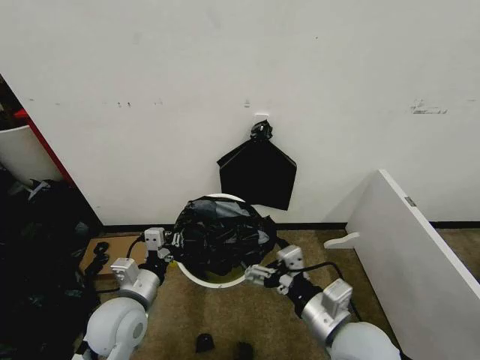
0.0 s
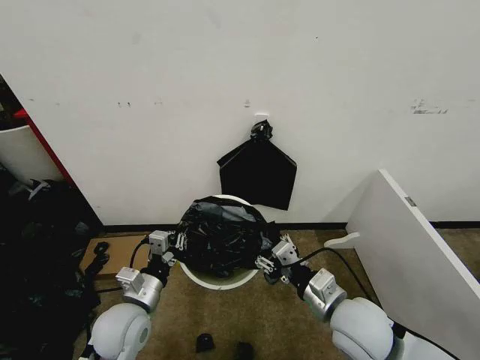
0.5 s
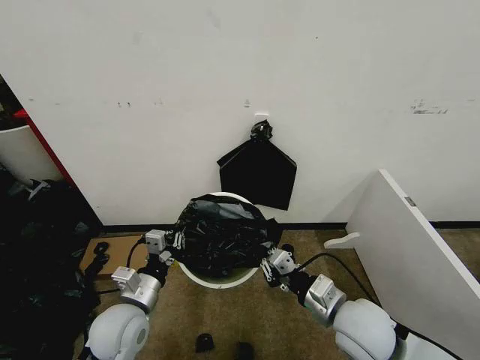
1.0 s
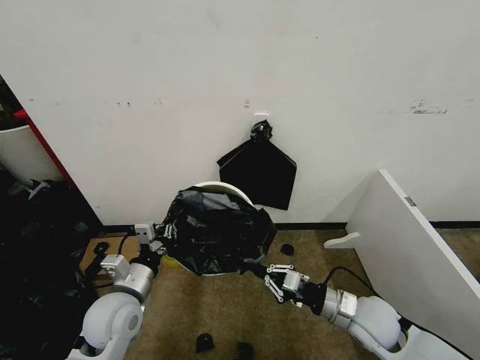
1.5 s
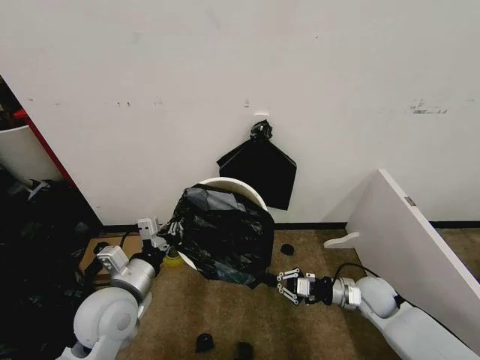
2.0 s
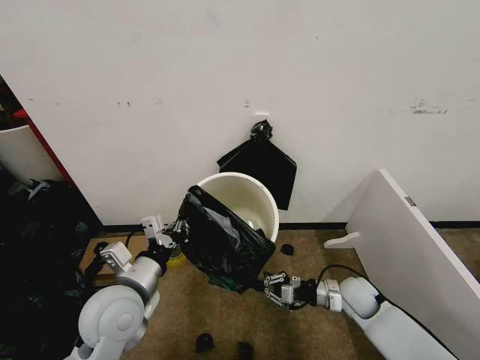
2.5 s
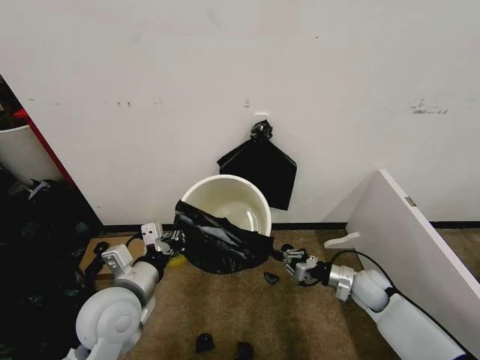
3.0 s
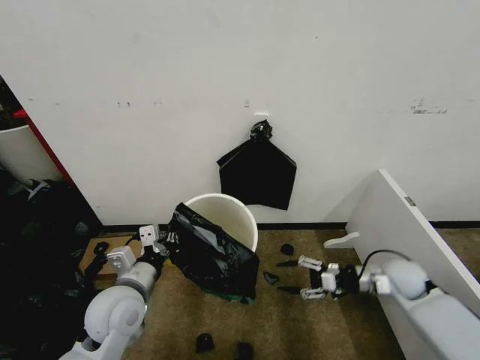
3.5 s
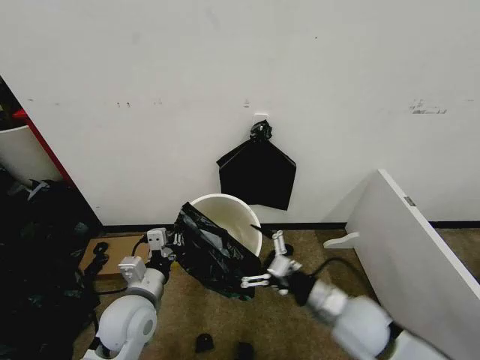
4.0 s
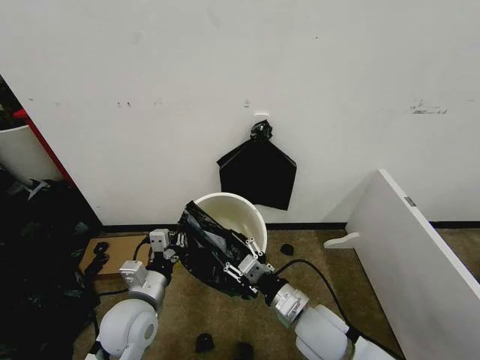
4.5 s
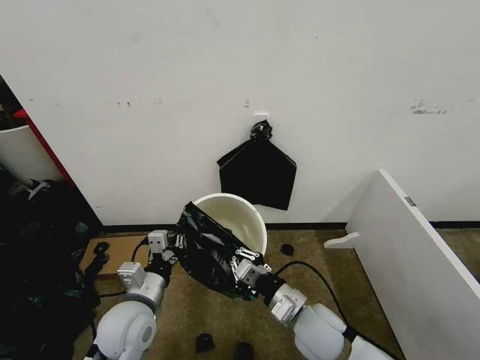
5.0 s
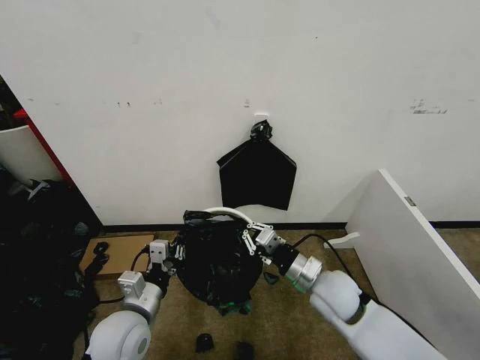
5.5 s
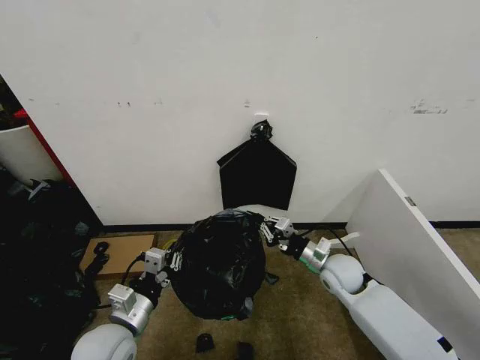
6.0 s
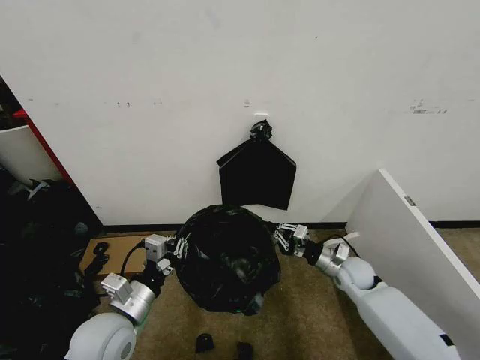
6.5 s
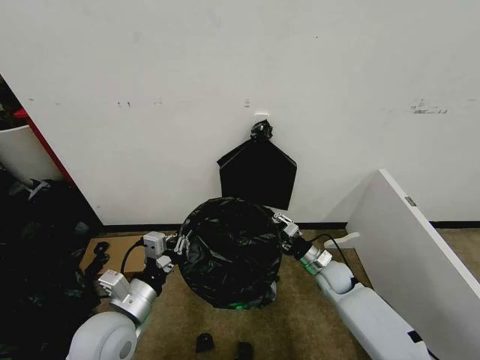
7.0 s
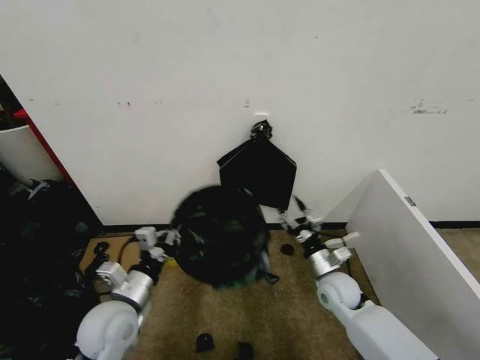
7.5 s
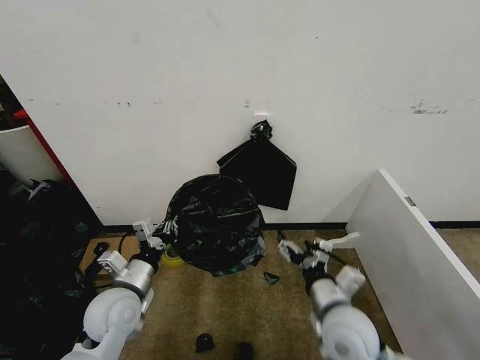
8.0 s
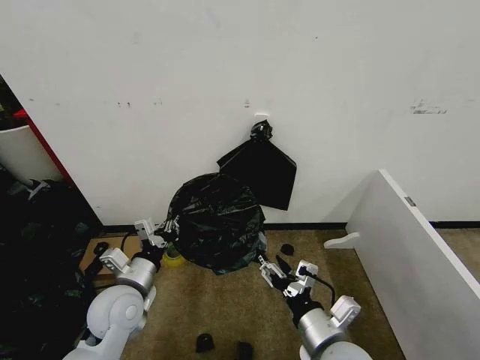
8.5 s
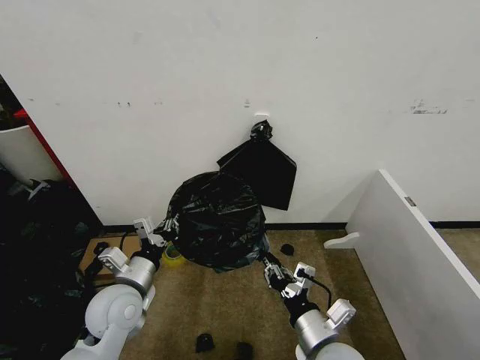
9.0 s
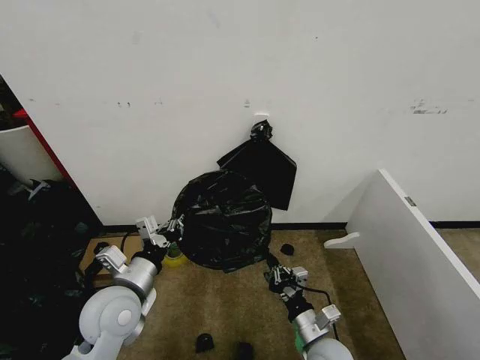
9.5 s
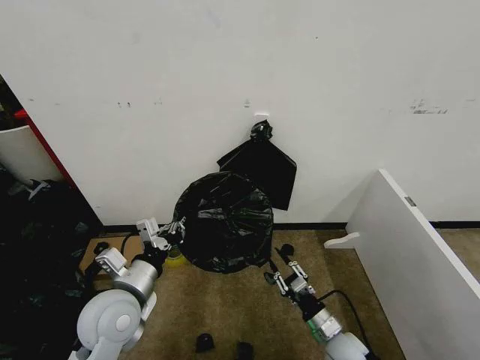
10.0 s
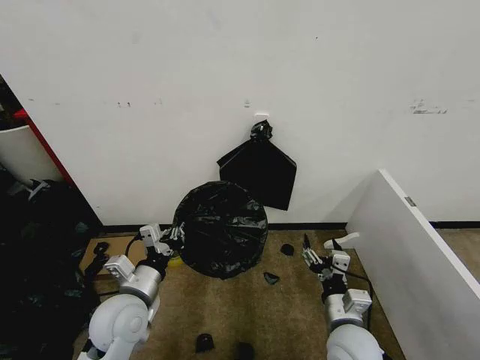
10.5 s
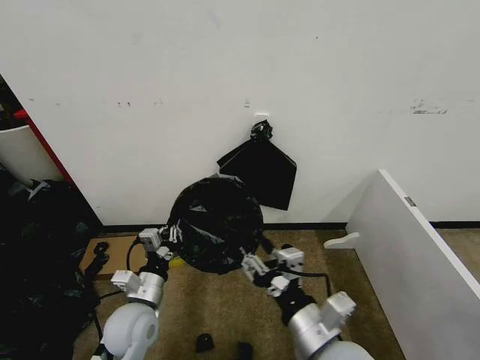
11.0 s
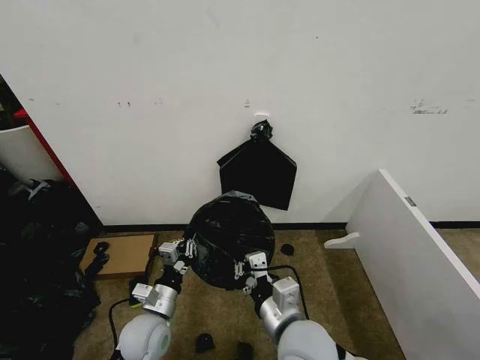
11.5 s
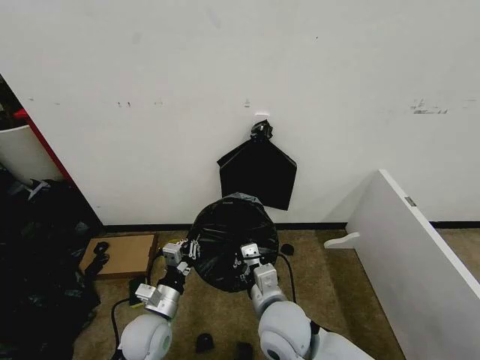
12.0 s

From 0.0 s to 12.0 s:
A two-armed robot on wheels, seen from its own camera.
Task of the whole recording: Place the garbage bag over the trash bin.
From 0.0 s to 2.0 s: The right gripper travels downward, forward and to the right by roughly 25 cm, and closes its fingers.
From 2.0 s to 4.0 s: The right gripper goes roughly 15 cm to the left, upward and backward, and opens. Meanwhile the left gripper ends up some 5 cm from where it was.
From 4.0 s to 6.0 s: The left gripper changes place by roughly 5 cm, while the right gripper heads forward and downward, covering some 15 cm, and closes its fingers.
From 6.0 s to 8.0 s: The left gripper moves forward, roughly 5 cm, while the right gripper goes approximately 15 cm backward and upward, and opens.
From 8.0 s to 10.0 s: The right gripper shifts approximately 20 cm downward, and closes up. Meanwhile the left gripper ends up about 5 cm from where it was.
From 10.0 s to 12.0 s: The right gripper moves upward and to the left, roughly 25 cm, and opens and closes again, while the left gripper is displaced downward by approximately 15 cm.

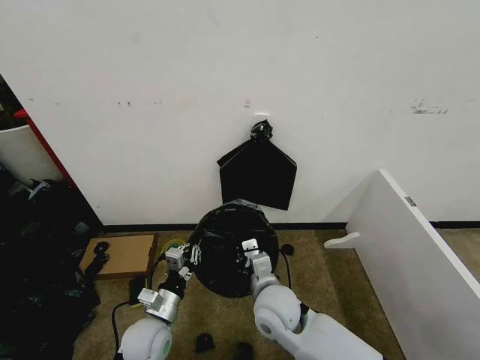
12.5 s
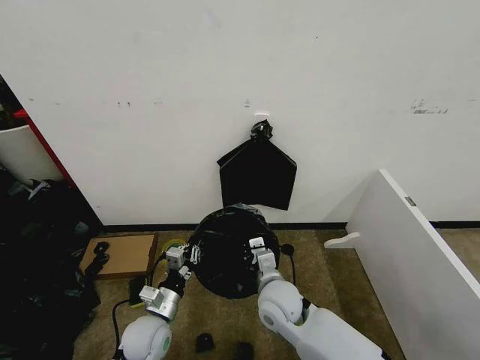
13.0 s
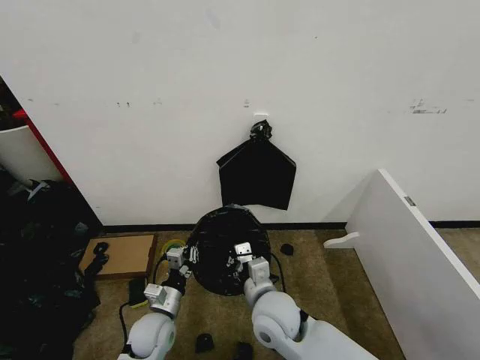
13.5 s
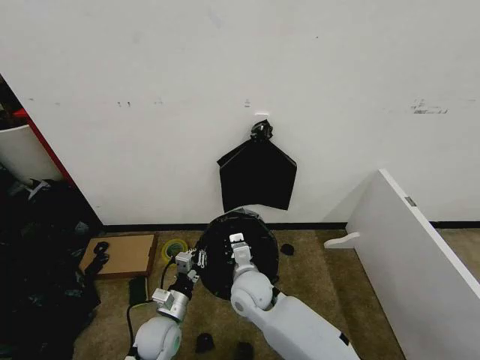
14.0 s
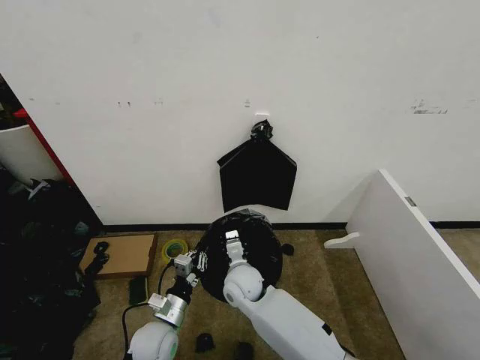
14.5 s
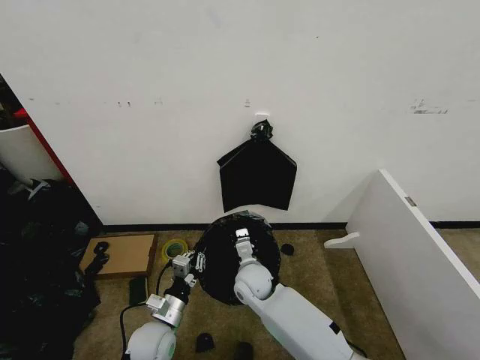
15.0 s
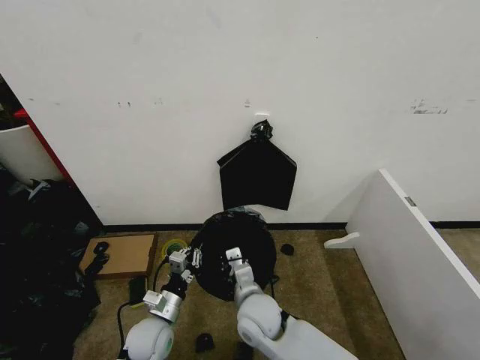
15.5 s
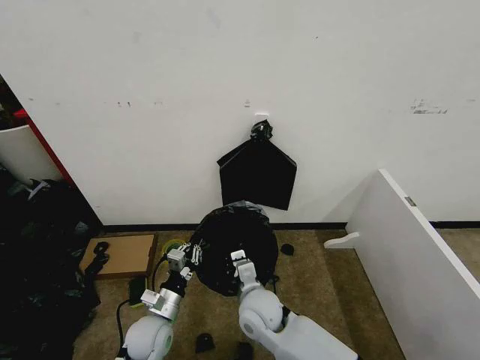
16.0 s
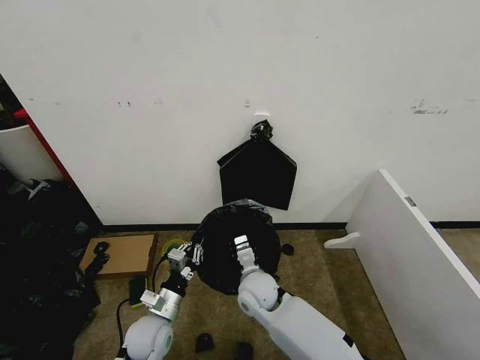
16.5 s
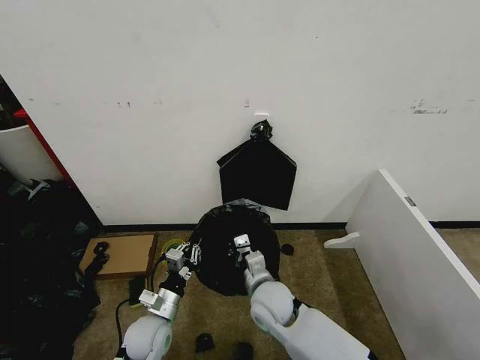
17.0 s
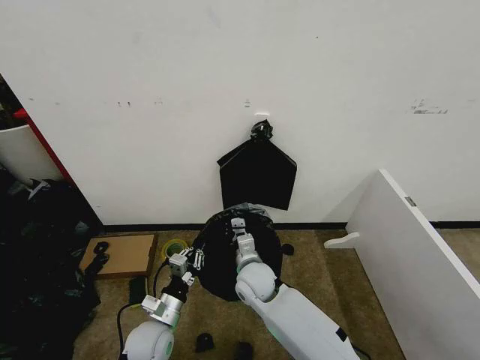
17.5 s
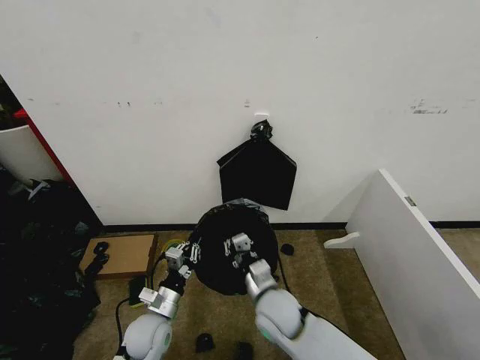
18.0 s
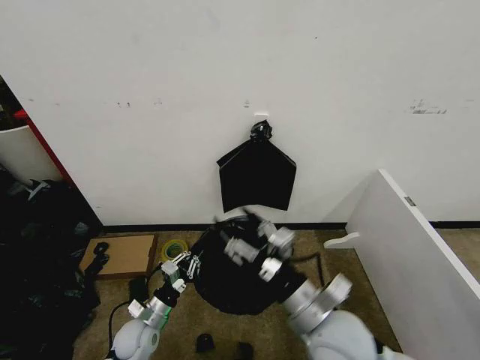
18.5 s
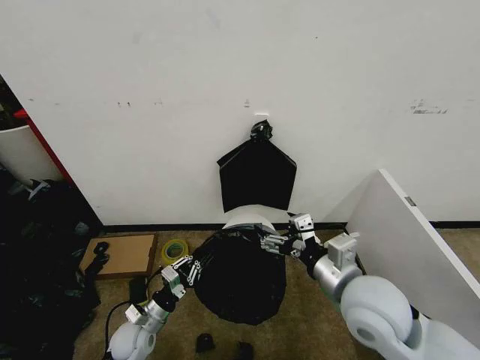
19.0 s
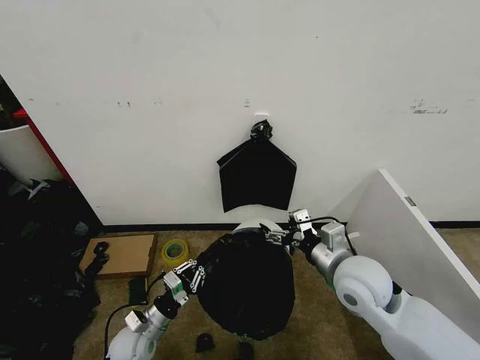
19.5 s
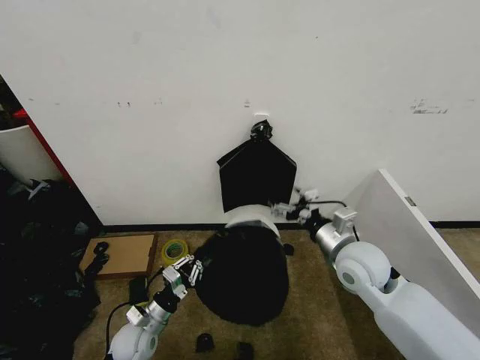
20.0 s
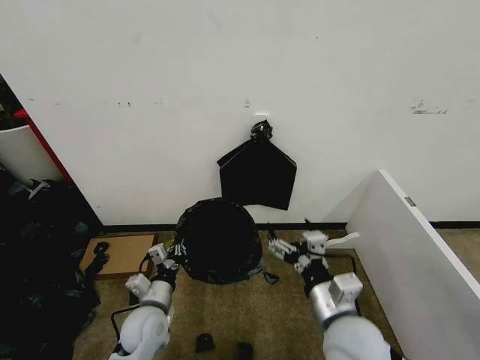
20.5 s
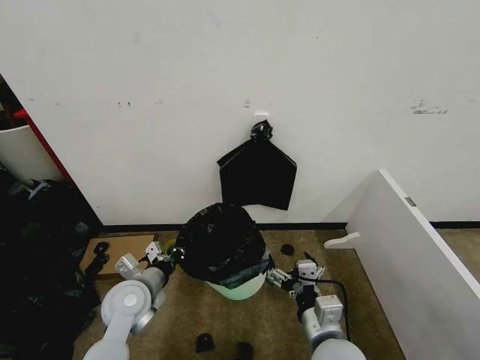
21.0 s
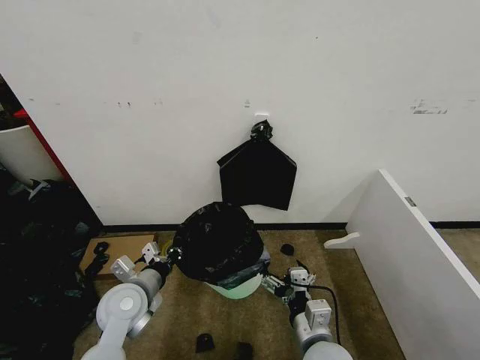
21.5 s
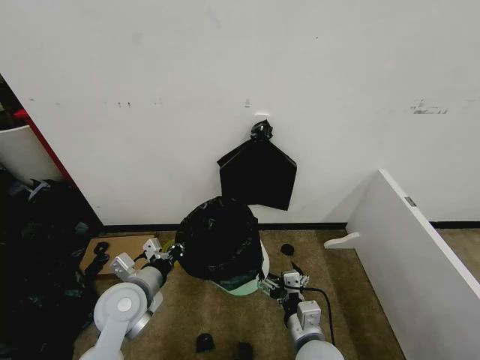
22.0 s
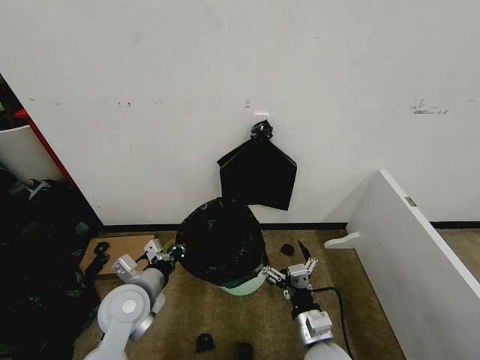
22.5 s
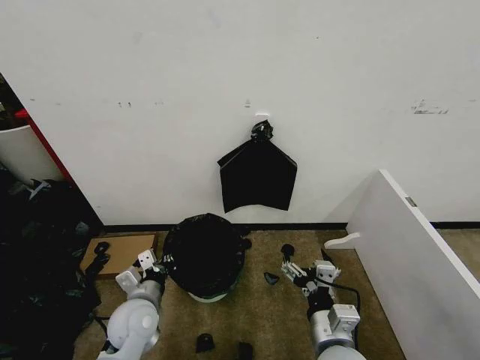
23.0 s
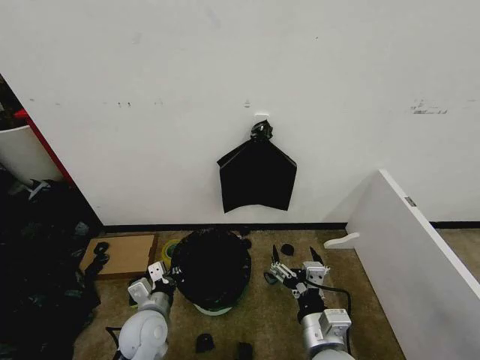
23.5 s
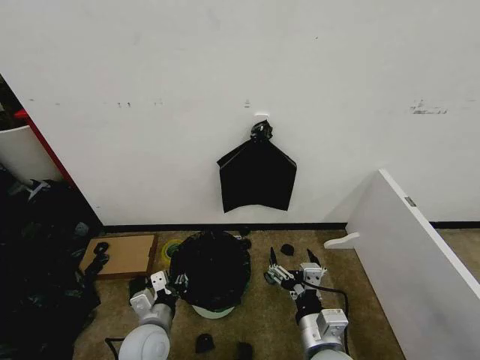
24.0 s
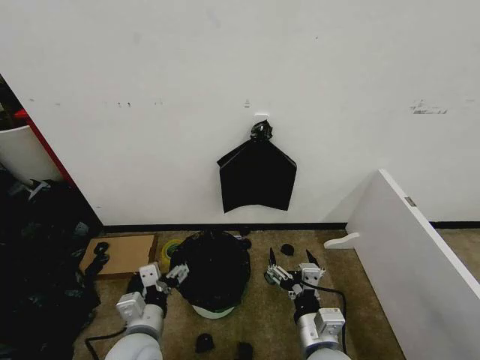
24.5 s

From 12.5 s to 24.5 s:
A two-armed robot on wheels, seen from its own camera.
Task of the whole recording: Place the garbage bag over the trash bin.
From 12.5 s to 14.5 s: The right gripper travels forward, to the left and downward by some 10 cm.
From 14.5 s to 16.5 s: The right gripper moves roughly 10 cm backward and comes back.
From 16.5 s to 18.5 s: The right gripper travels upward, backward and to the right by approximately 25 cm, and opens its fingers. Meanwhile the left gripper ends up roughly 5 cm from where it was.
From 18.5 s to 20.5 s: The left gripper is displaced upward by some 5 cm. The right gripper goes forward and returns, roughly 15 cm each way.
From 20.5 s to 22.5 s: The left gripper heads upward, covering about 10 cm; the right gripper is displaced downward by about 10 cm.
From 22.5 s to 24.5 s: The right gripper travels upward by roughly 5 cm, while the left gripper shifts some 10 cm backward, and opens its fingers.

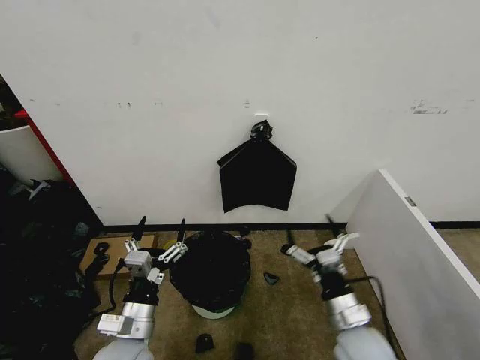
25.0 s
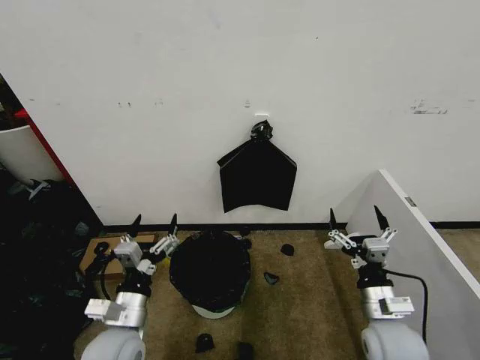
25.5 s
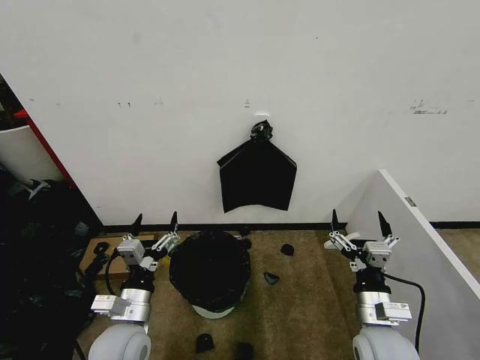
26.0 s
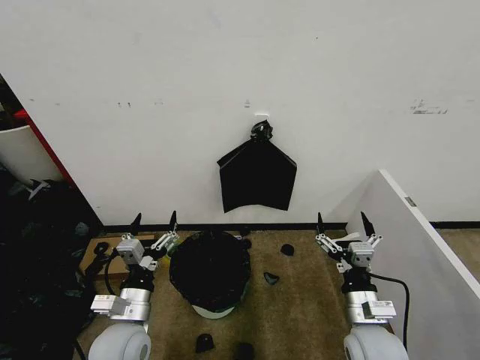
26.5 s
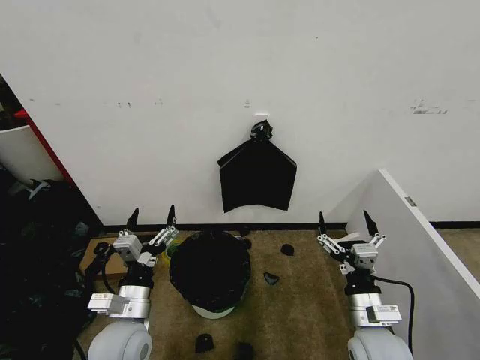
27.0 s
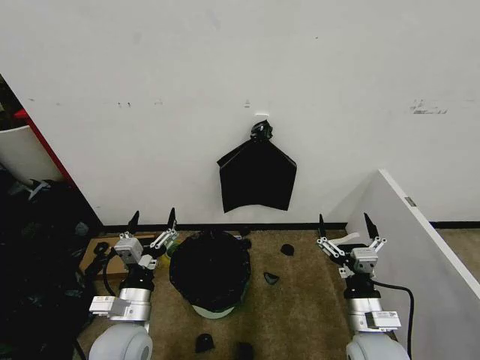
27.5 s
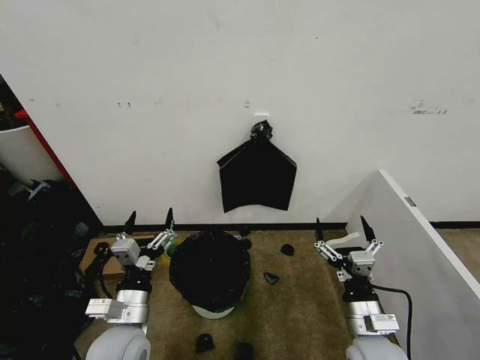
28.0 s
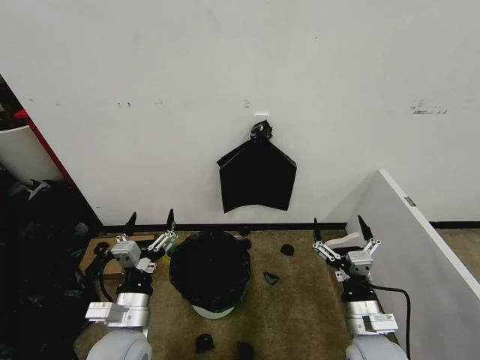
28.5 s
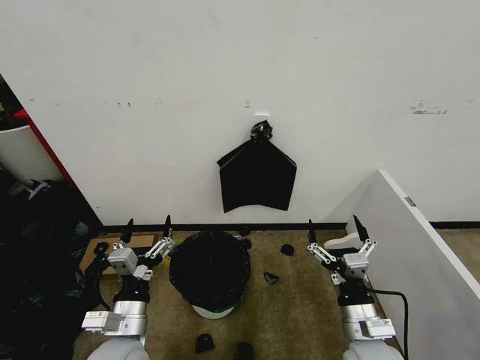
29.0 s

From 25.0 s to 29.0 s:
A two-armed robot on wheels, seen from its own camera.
Task of the whole recording: Place the garbage bag over the trash bin.
From 27.0 s to 29.0 s: The grippers move only a little.
